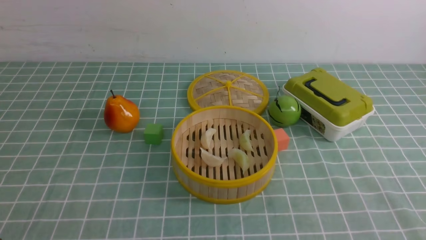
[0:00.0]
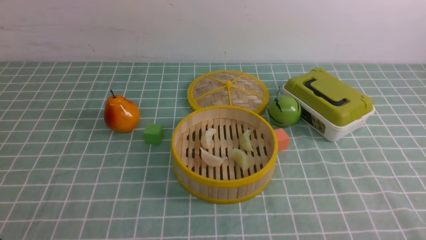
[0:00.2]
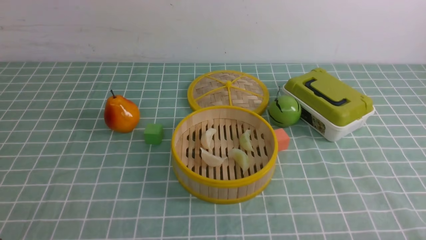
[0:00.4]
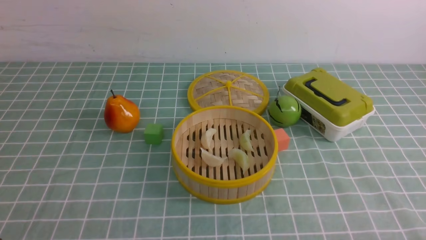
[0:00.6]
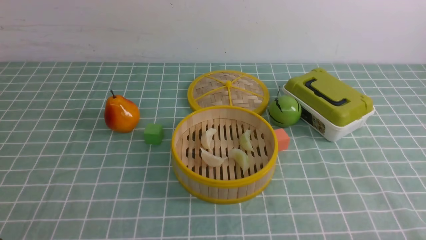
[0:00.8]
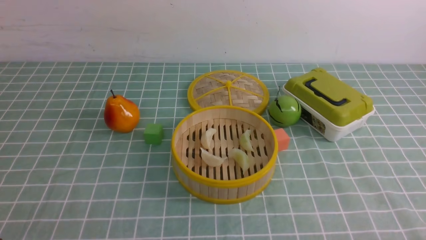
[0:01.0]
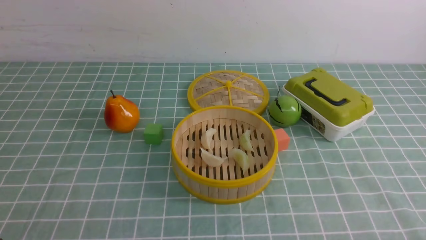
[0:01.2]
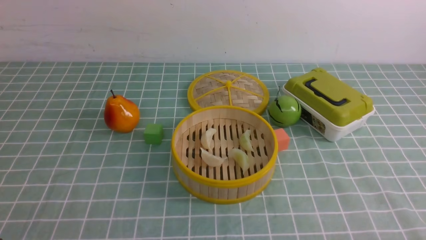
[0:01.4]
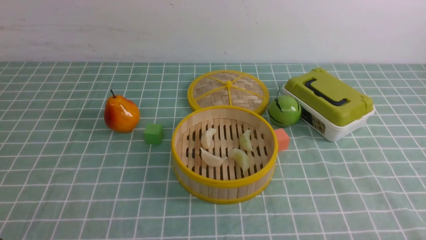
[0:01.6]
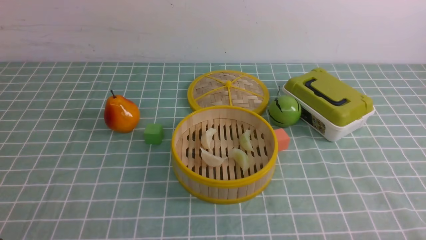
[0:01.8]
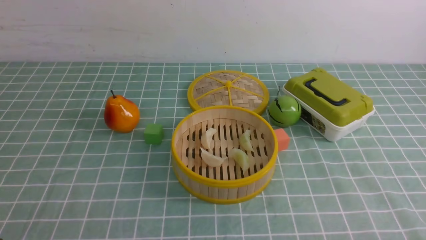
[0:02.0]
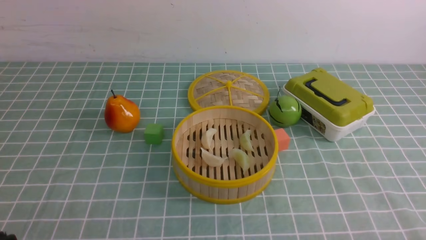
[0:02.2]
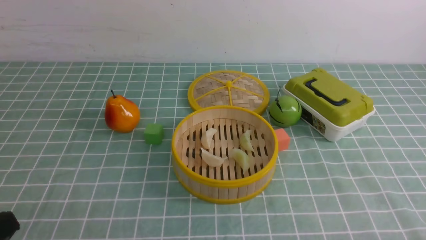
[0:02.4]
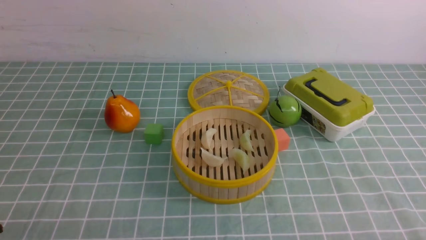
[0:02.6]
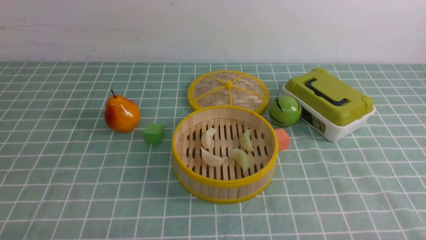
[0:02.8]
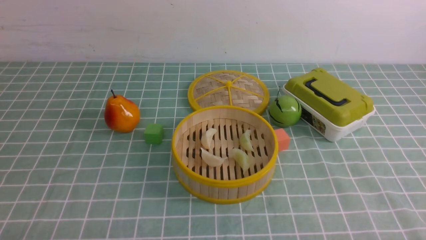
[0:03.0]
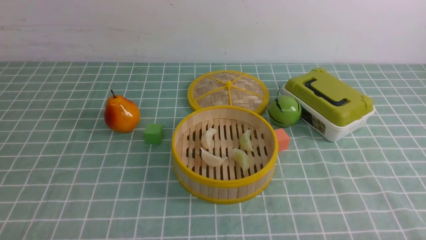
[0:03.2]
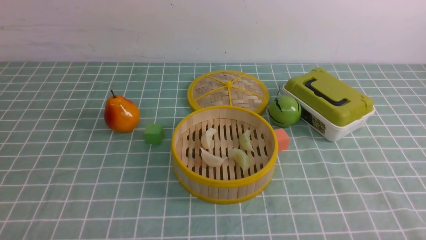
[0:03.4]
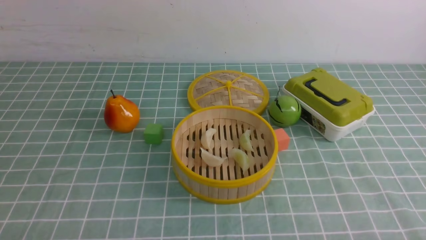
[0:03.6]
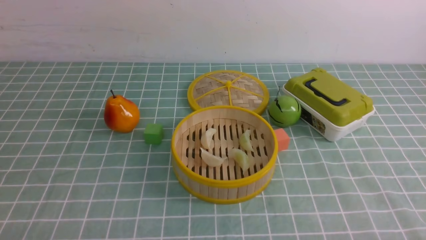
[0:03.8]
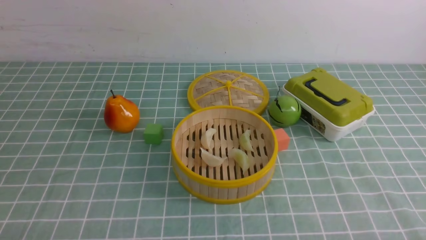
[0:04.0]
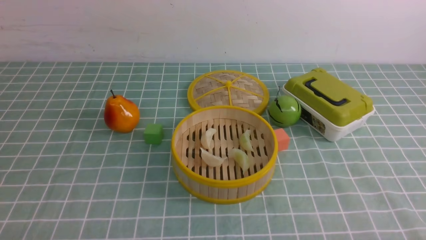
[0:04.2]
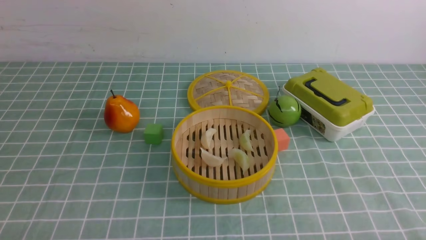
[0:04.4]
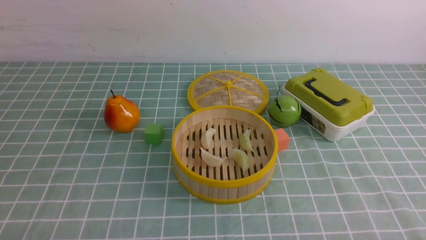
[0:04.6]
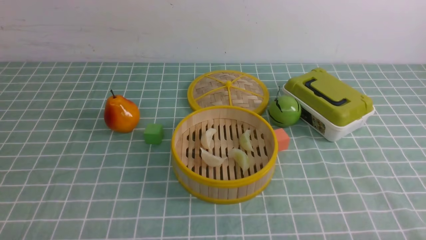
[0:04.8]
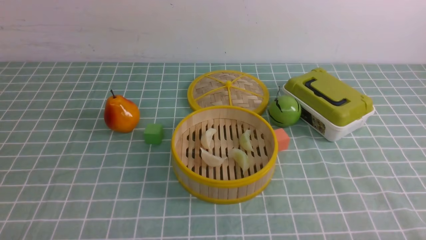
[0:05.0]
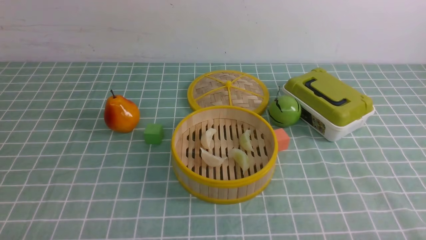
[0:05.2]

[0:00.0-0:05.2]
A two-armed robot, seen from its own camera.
Task of the whole recording: put the dumplings into the steamer on the table with the blue tablecloth.
0:03.4 to 0:05.2: Neither gripper changes place.

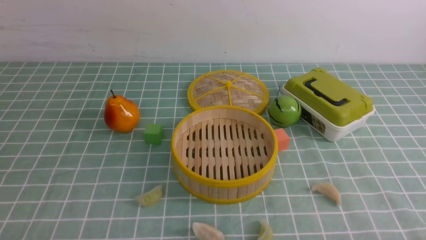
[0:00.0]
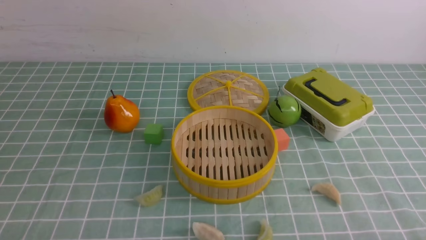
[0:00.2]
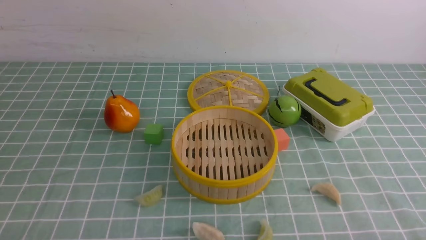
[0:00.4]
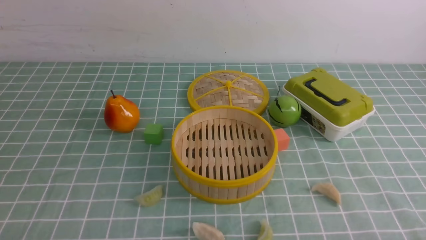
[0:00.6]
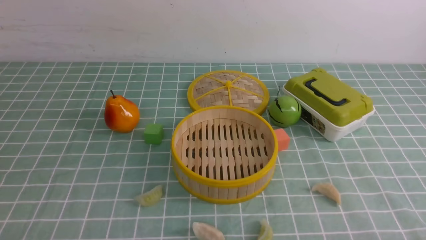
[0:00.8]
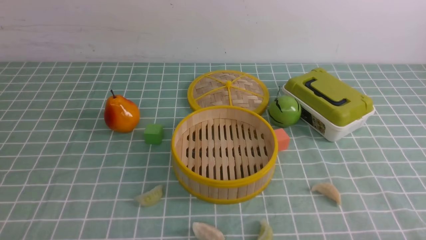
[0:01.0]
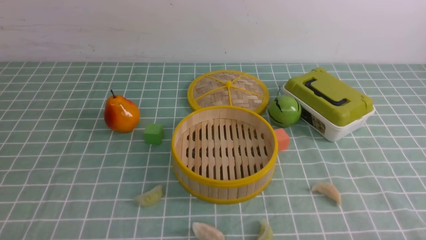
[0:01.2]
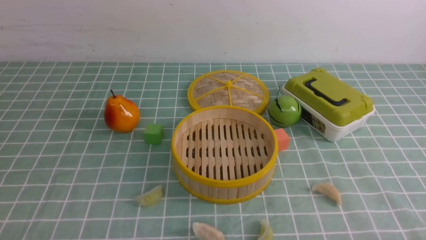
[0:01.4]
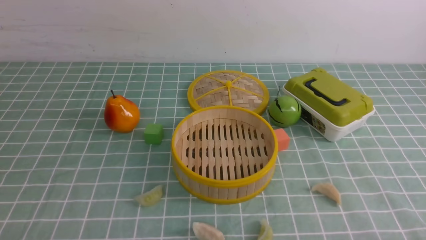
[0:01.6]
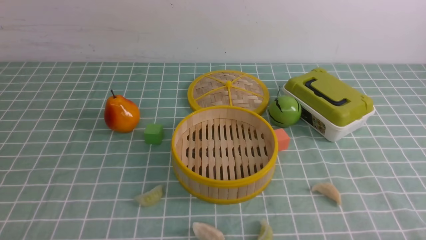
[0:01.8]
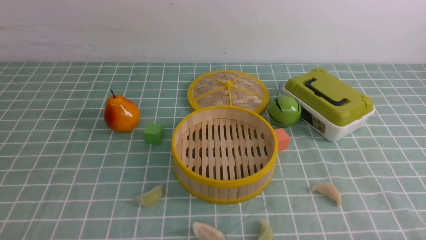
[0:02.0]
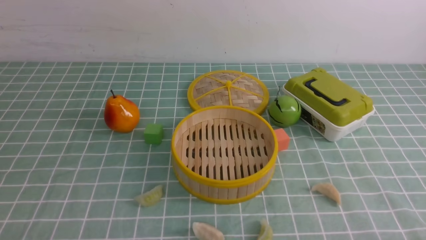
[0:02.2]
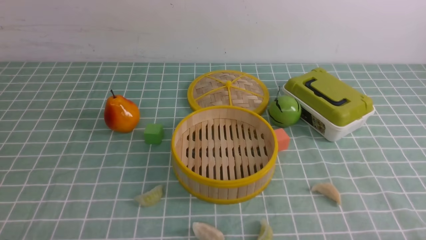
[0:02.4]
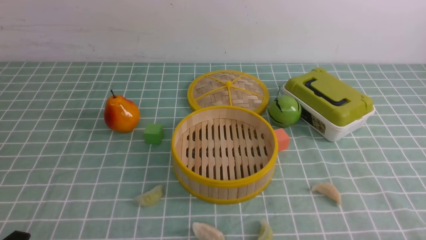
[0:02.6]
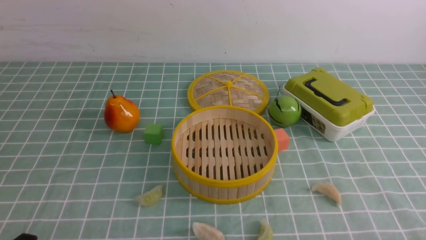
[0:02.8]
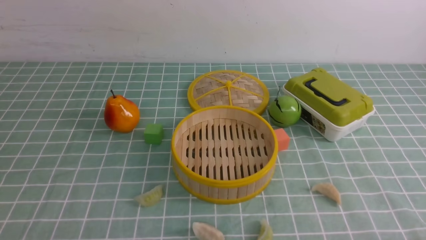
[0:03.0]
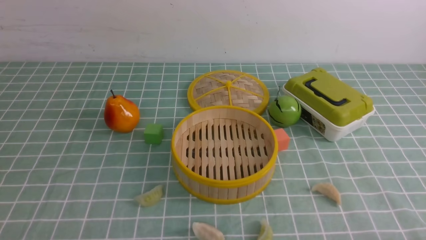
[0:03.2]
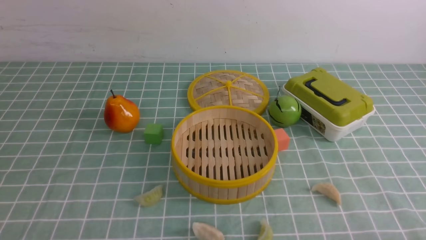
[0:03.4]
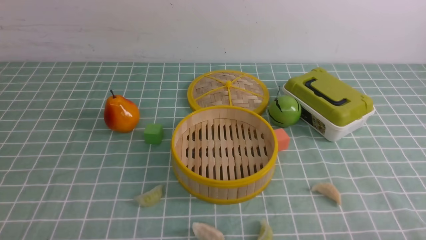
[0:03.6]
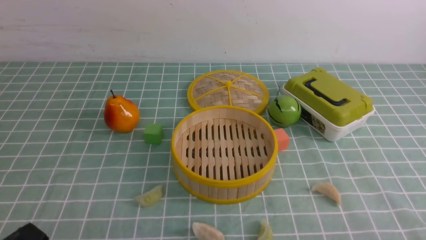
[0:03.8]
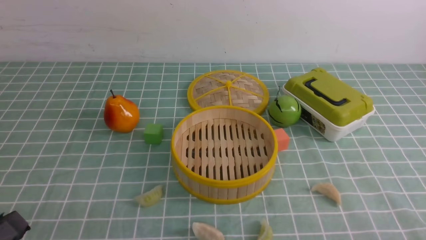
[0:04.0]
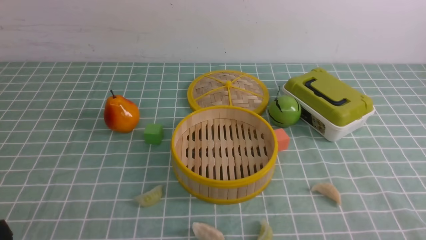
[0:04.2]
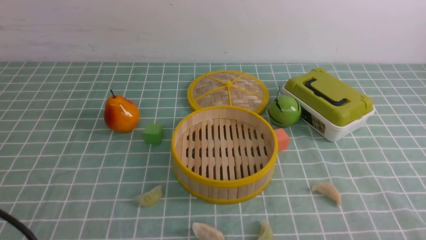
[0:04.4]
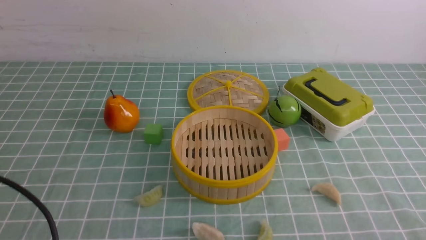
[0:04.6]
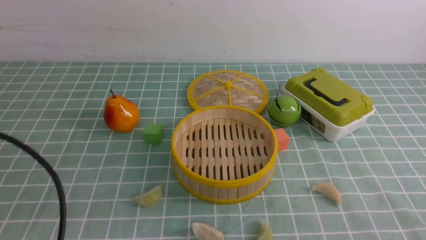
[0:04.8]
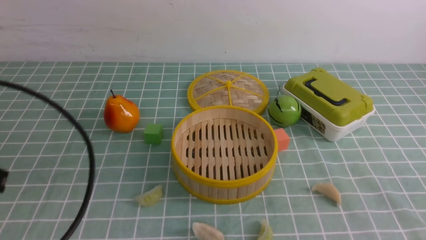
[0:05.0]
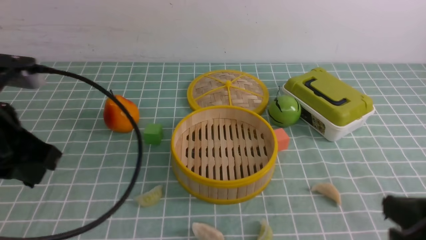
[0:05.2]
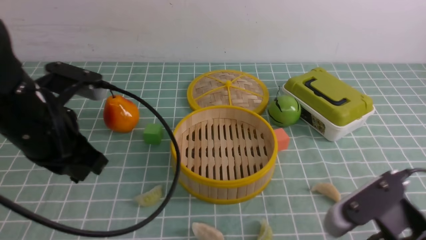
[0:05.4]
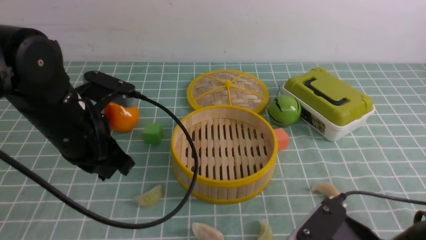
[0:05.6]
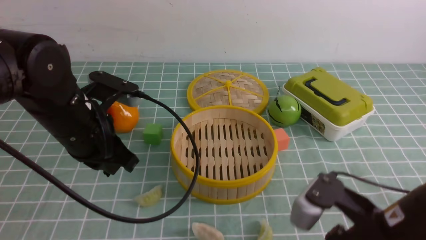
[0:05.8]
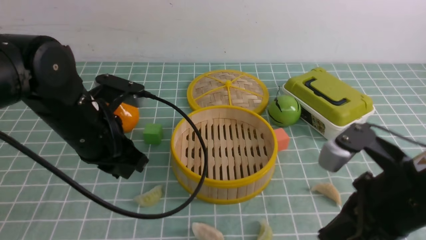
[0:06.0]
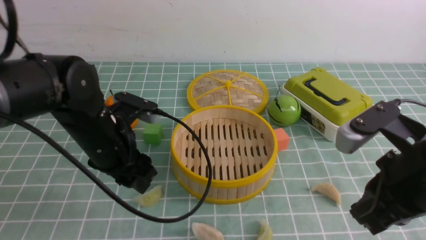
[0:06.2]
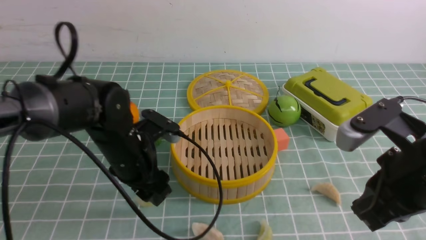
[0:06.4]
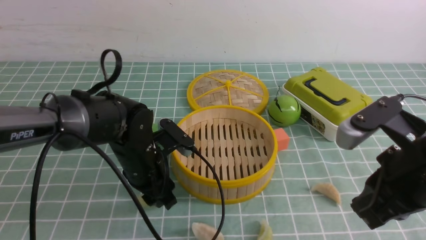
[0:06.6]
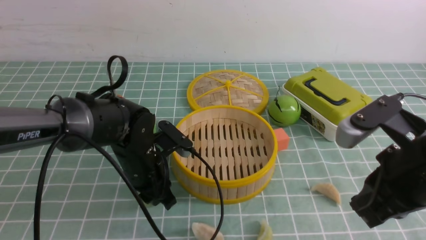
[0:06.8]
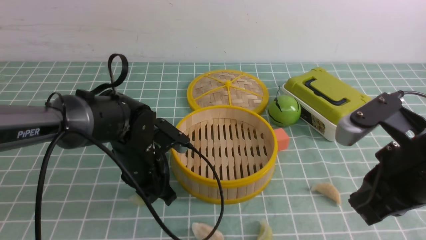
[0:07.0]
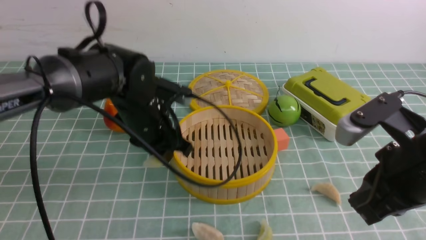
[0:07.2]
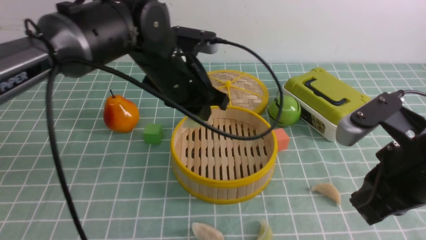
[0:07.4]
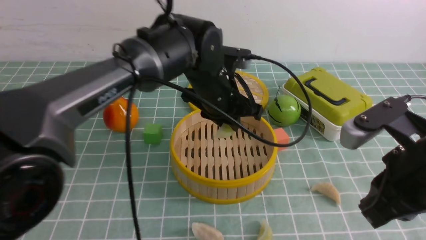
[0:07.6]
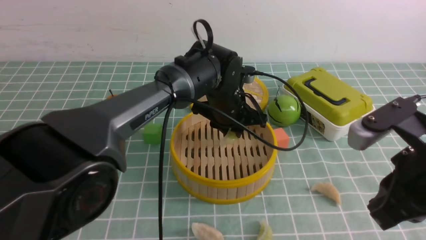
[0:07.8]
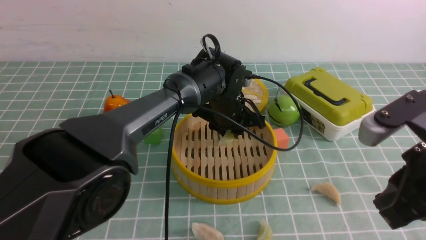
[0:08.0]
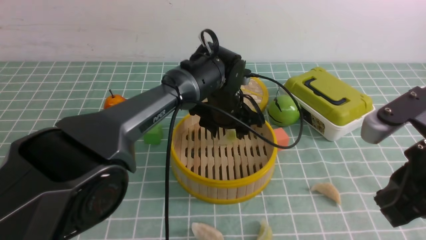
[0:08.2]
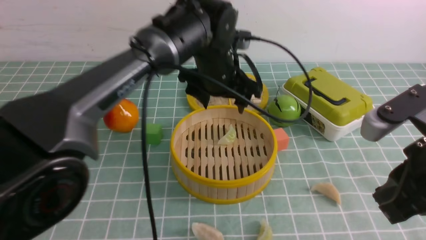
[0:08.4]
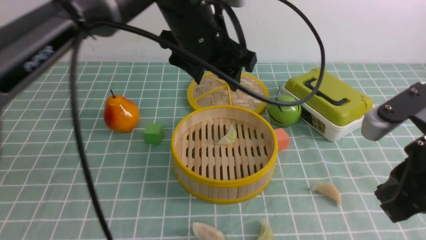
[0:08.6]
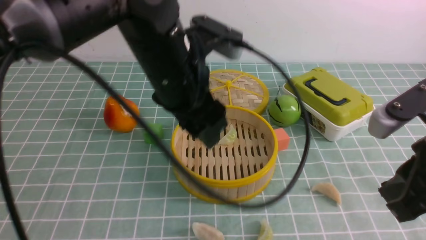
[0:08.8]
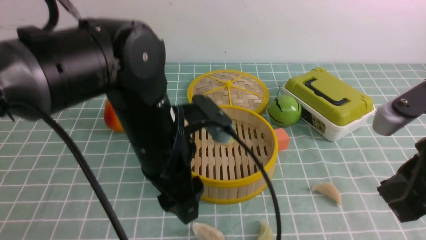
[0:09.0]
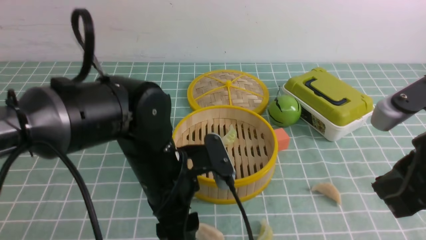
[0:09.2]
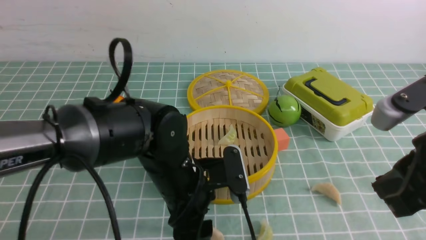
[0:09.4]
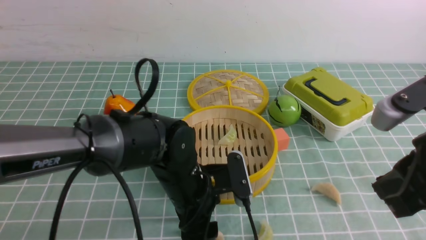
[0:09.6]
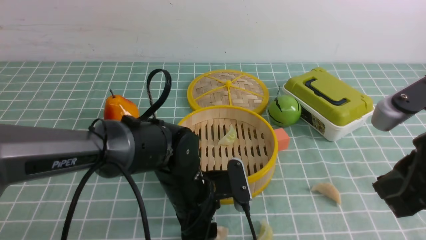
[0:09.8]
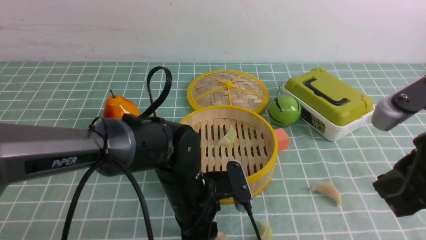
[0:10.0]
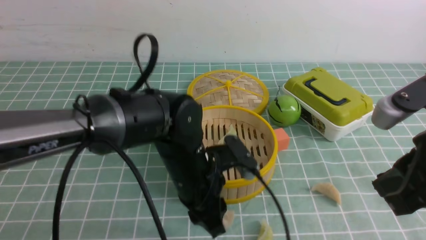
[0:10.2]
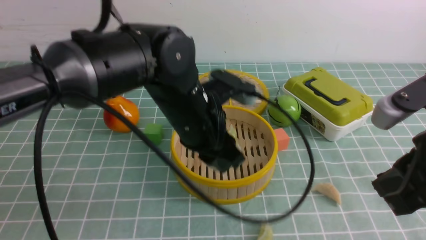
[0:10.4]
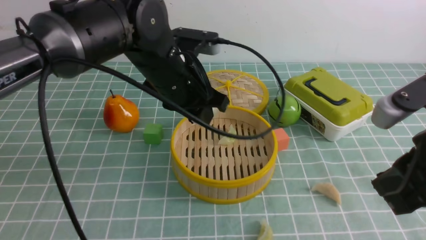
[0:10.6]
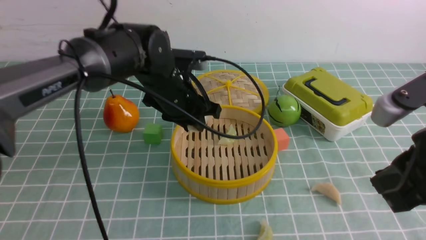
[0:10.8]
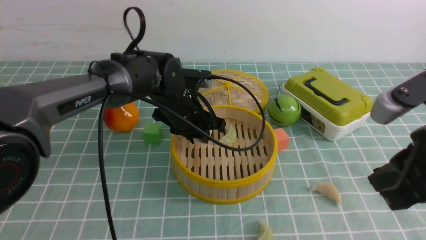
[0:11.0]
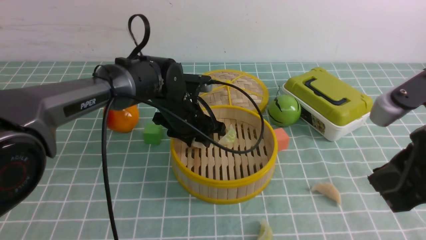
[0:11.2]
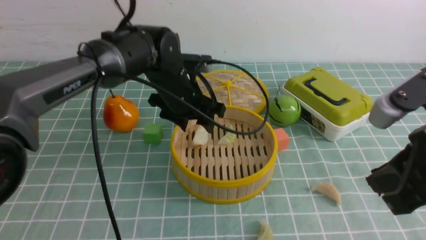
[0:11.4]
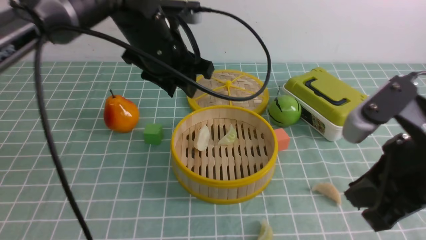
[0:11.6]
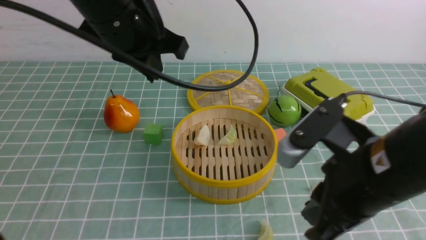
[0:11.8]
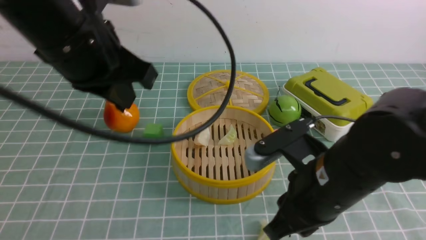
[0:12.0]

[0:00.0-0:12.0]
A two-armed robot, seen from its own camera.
Task of the whole recording: put the dumplings into the steamer on the table with the blue tablecloth.
Step, 0:00.0 to 0:07.0: use the left arm to grab a dumpling.
Step, 0:07.4 to 0:08.4: use the left arm to put the dumpling into the steamer.
Step, 0:08.6 to 0:10.4: use the left arm to grab a dumpling.
Step, 0:10.6 to 0:11.4: use the left arm to put the dumpling into the steamer.
0:04.4 to 0:06.0: The left gripper goes approximately 25 cm forward. Meanwhile the right gripper heads to the left, forward and upward, covering approximately 20 cm, and closes its fingers.
0:06.0 to 0:07.6: The right gripper moves about 5 cm. Meanwhile the left gripper is displaced to the right and forward by about 15 cm, and opens, then closes once more.
0:07.6 to 0:09.0: The left gripper moves backward, approximately 10 cm, and opens up.
0:09.0 to 0:10.4: The left gripper moves downward, some 5 cm, and closes.
0:10.4 to 0:12.0: The left gripper shifts roughly 20 cm upward and to the left, and closes. The right gripper travels to the left and downward by about 10 cm.
